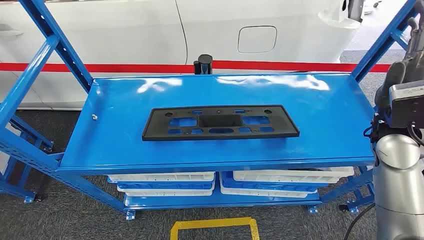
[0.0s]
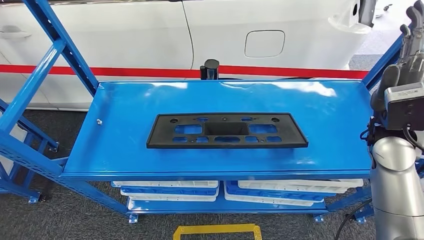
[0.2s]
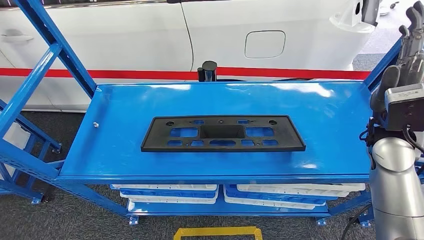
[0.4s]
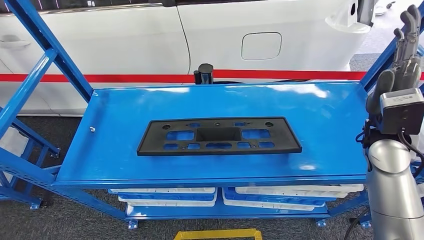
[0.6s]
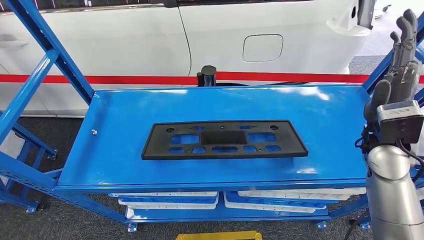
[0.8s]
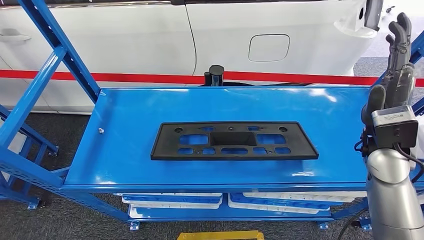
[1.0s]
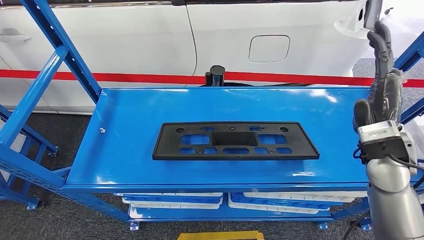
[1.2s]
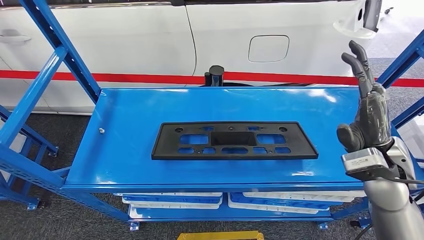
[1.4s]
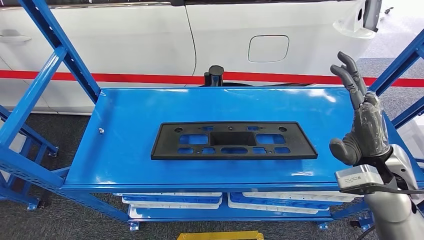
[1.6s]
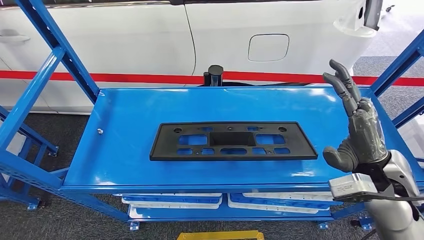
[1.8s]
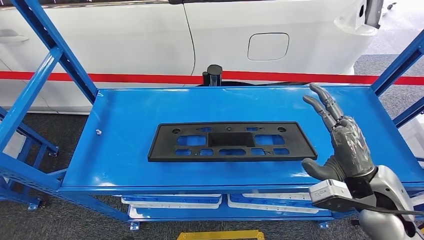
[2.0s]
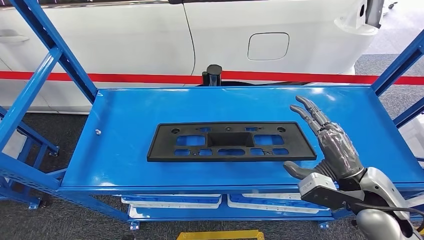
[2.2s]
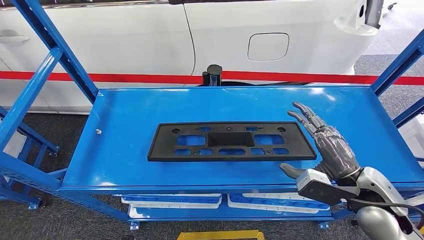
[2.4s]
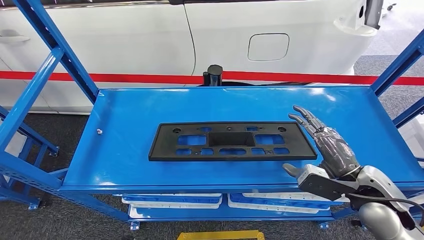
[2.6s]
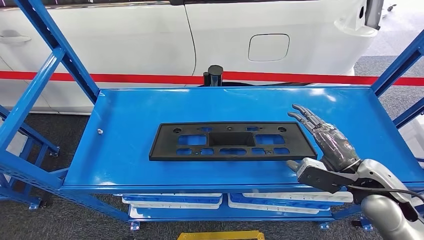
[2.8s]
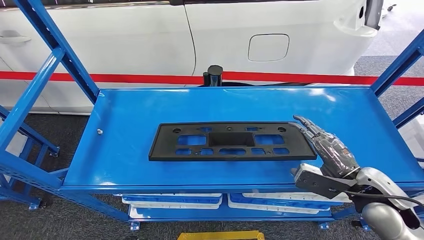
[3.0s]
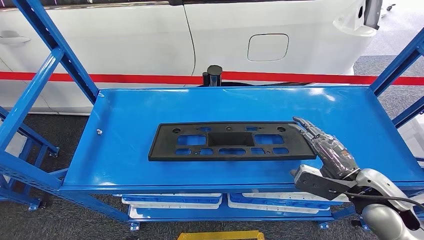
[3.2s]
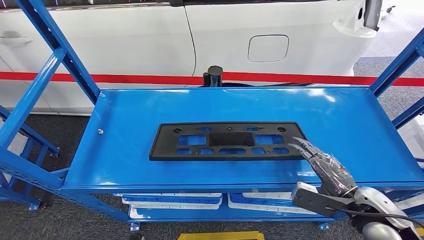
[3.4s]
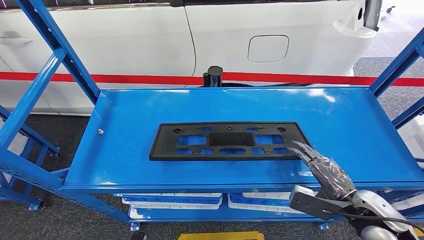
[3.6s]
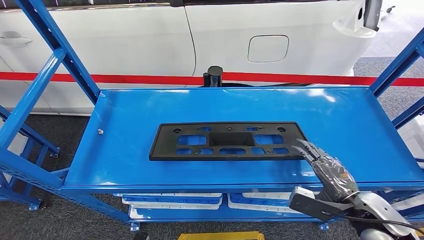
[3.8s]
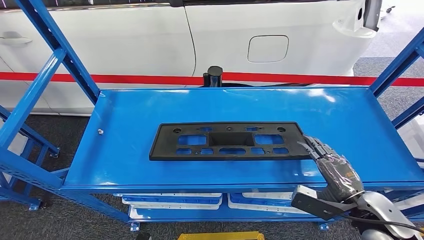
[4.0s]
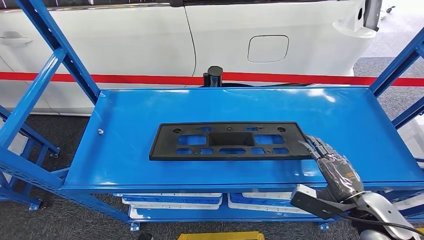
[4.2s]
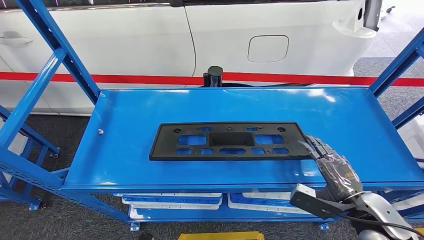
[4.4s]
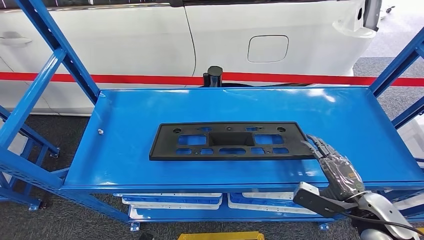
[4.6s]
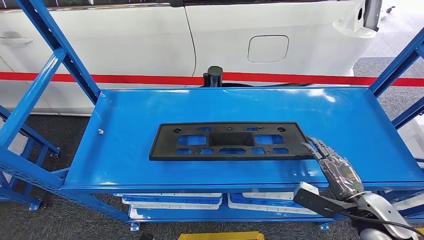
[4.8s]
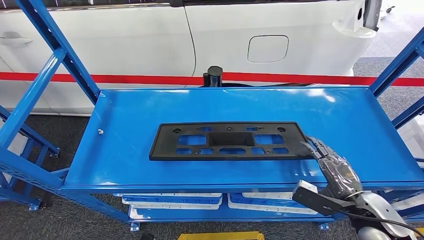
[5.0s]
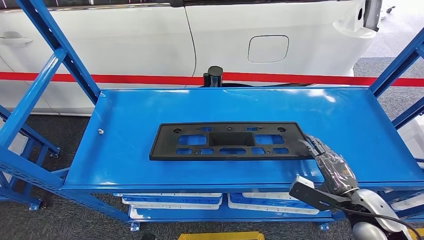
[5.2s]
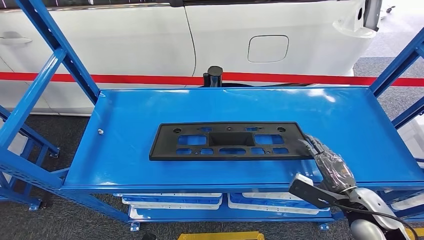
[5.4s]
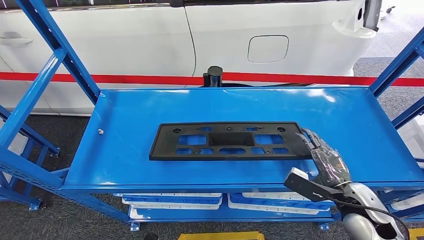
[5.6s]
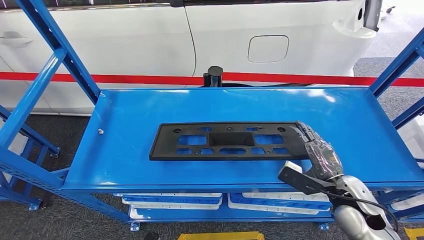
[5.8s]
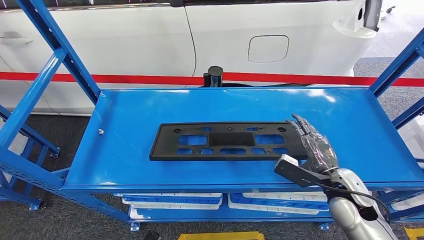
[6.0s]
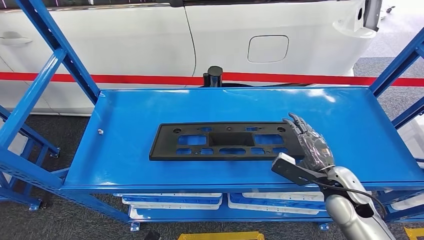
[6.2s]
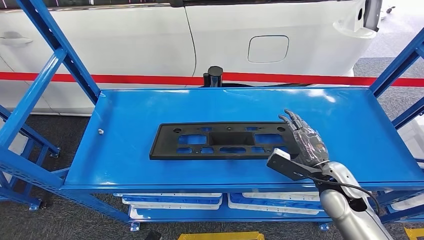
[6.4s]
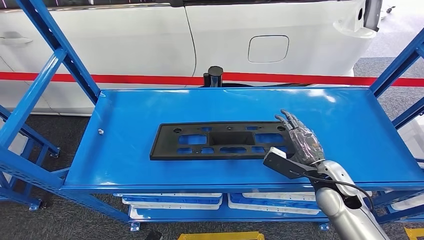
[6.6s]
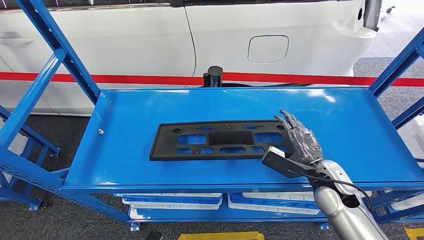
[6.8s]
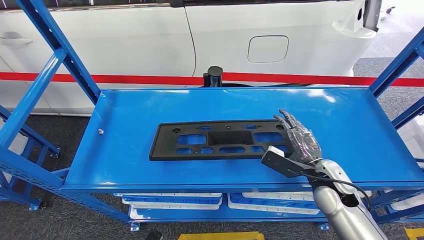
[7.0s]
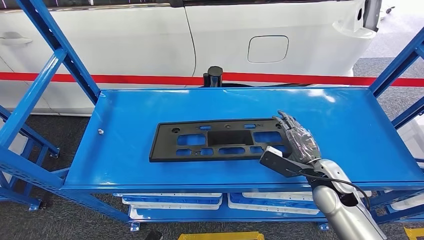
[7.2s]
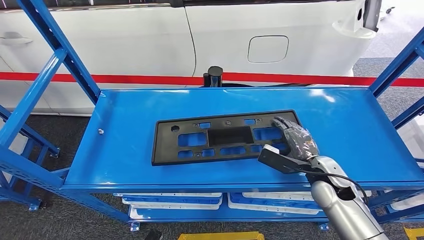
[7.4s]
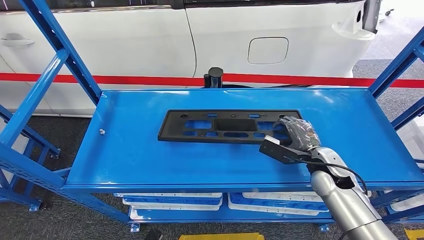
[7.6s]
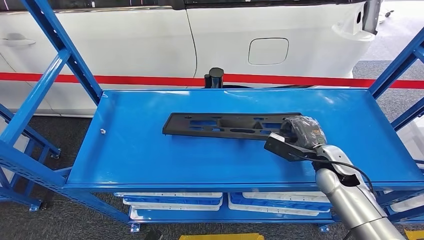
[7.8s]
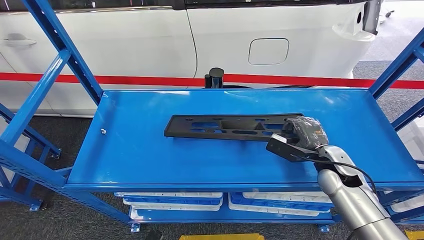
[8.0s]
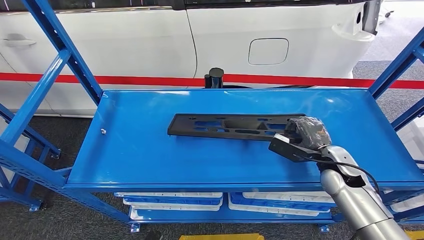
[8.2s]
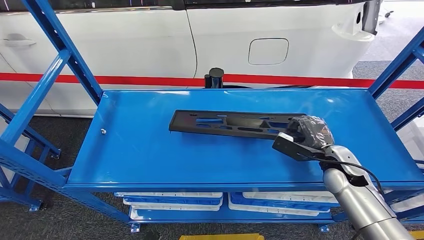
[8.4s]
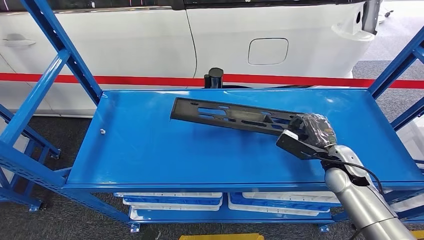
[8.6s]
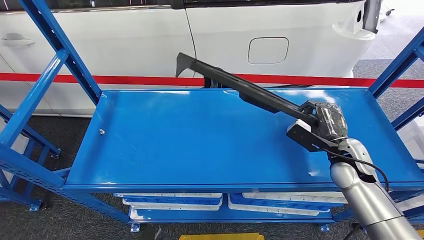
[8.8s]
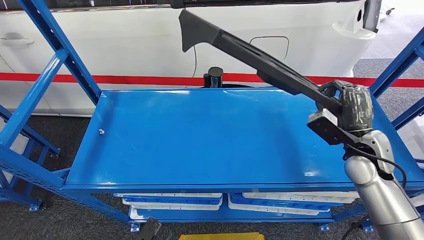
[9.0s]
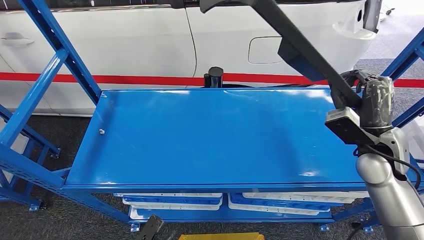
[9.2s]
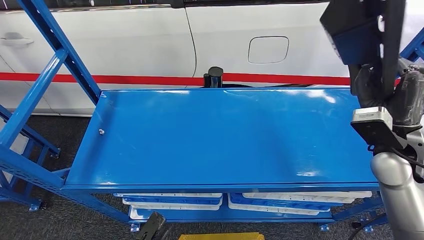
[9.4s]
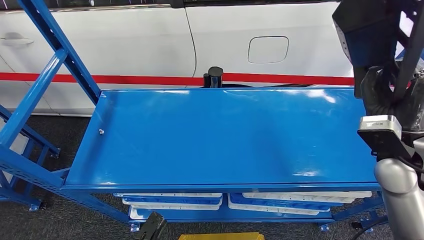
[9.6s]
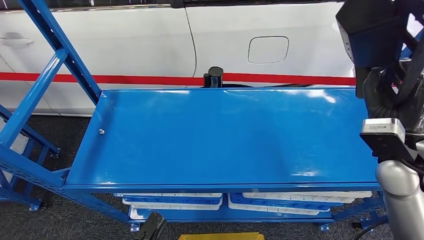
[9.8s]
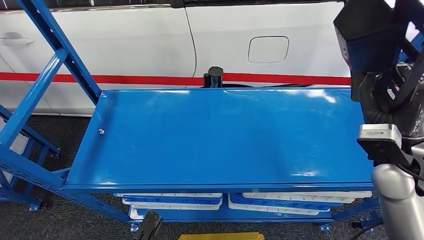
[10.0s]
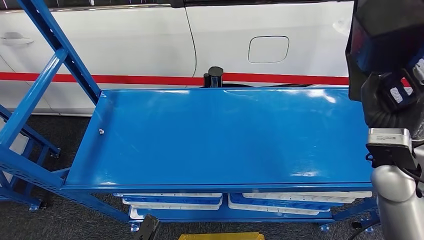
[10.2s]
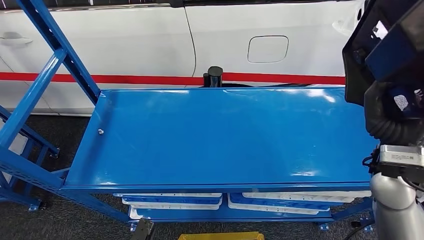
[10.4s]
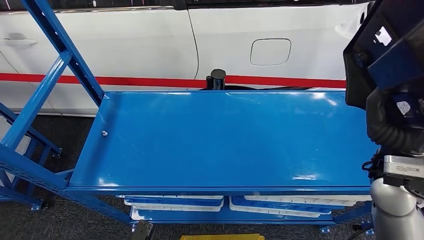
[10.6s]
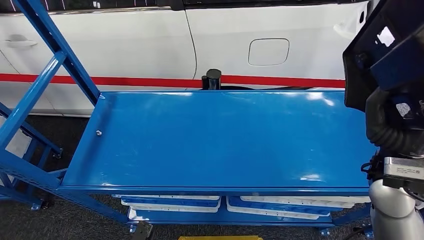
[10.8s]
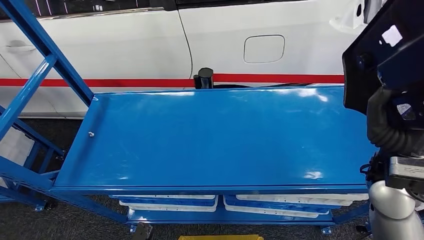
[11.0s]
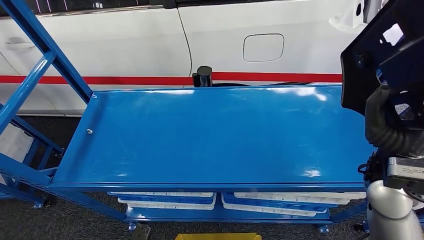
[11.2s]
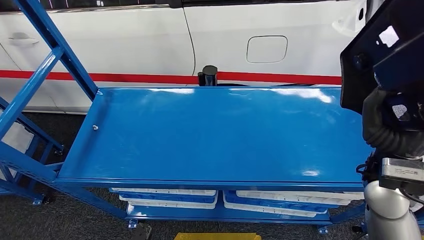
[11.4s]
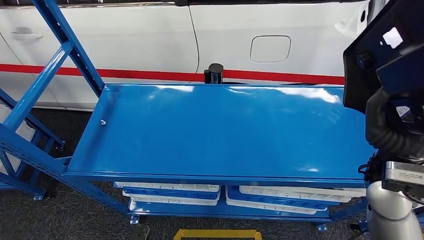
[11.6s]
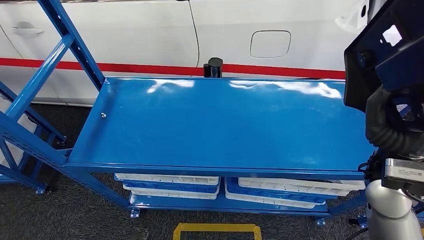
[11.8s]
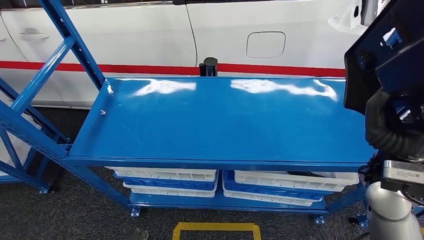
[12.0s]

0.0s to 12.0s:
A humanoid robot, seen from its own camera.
1.6s to 3.0s: The right hand travels downward by some 5 cm.
3.0s to 4.4s: The right hand moves roughly 5 cm.
4.4s to 6.0s: The right hand travels forward by some 5 cm.
6.0s to 7.6s: The right hand goes roughly 5 cm forward.

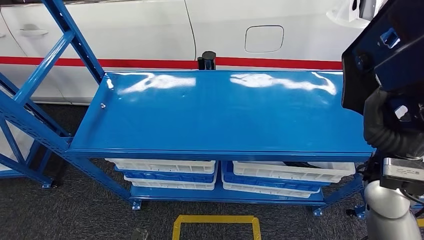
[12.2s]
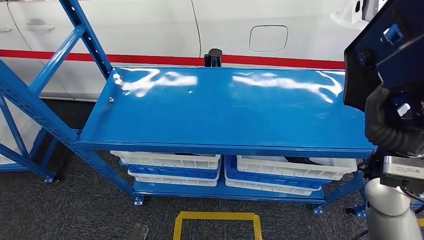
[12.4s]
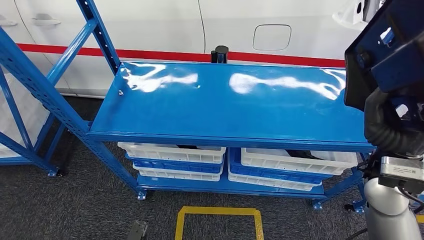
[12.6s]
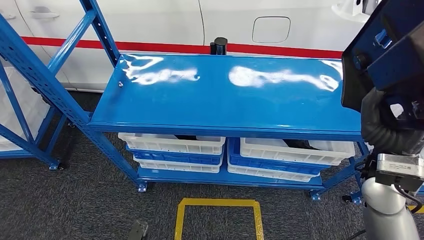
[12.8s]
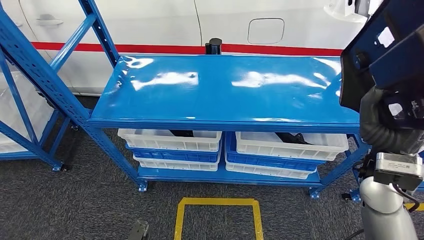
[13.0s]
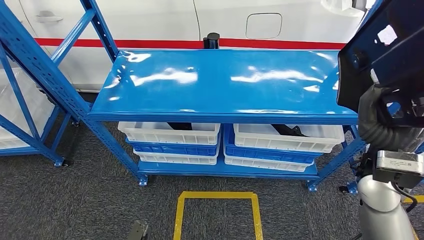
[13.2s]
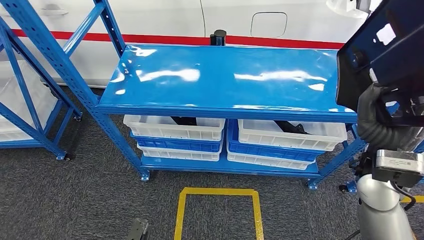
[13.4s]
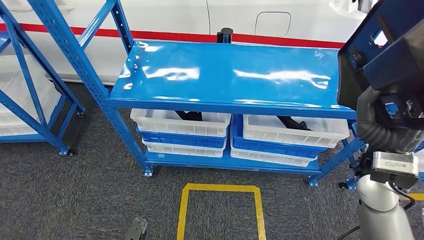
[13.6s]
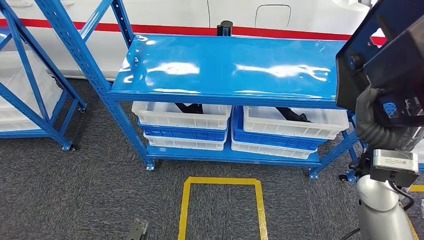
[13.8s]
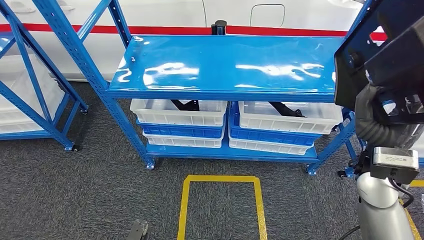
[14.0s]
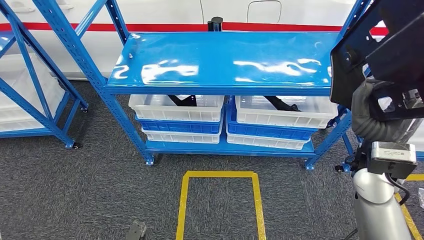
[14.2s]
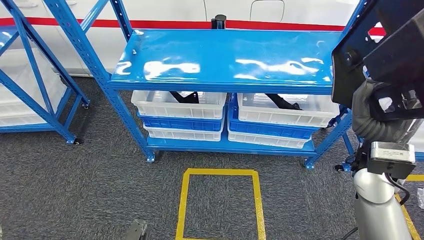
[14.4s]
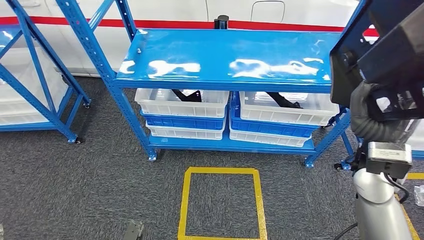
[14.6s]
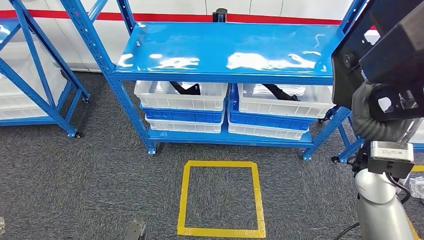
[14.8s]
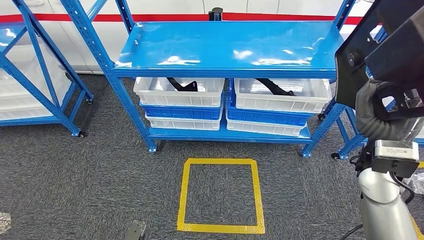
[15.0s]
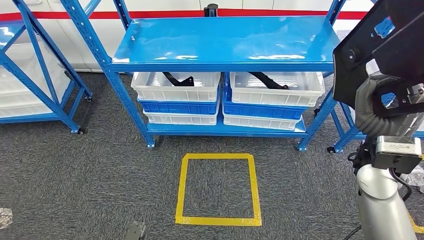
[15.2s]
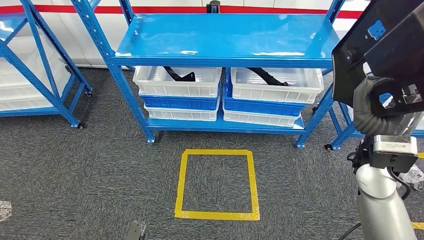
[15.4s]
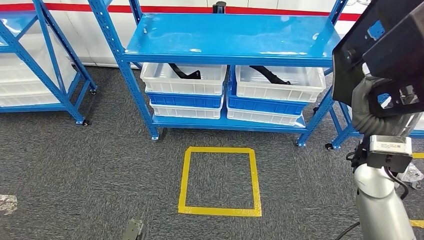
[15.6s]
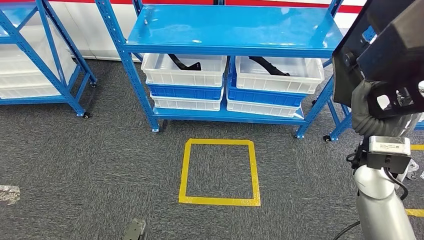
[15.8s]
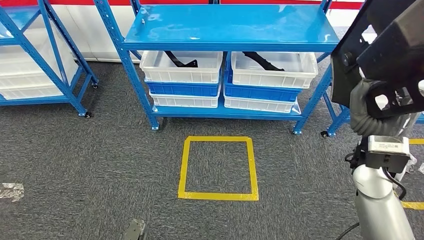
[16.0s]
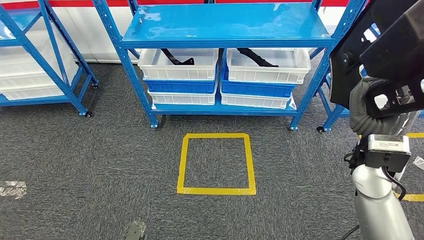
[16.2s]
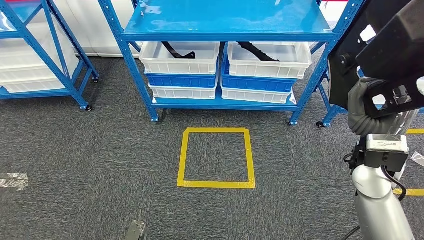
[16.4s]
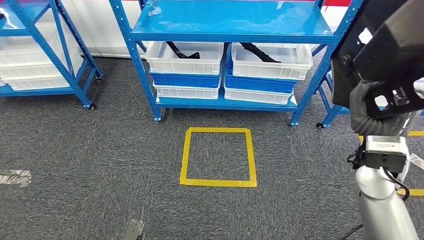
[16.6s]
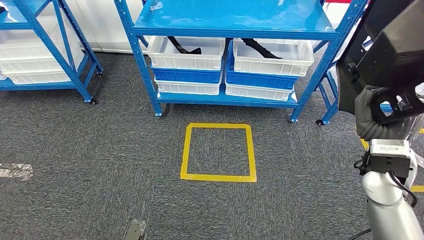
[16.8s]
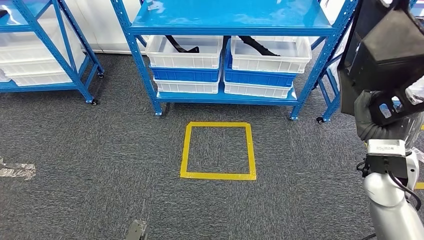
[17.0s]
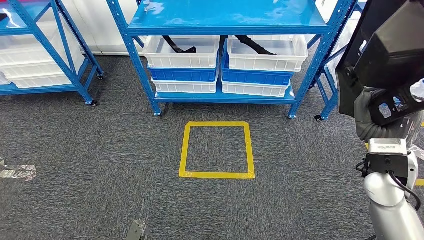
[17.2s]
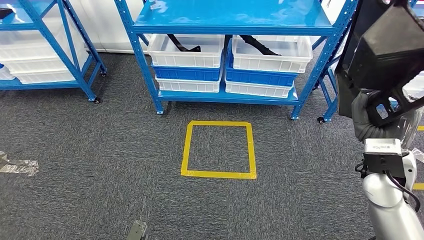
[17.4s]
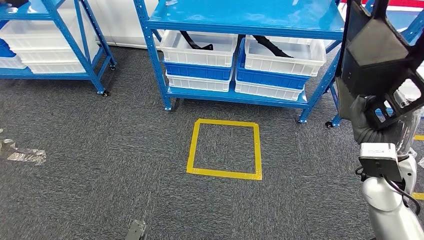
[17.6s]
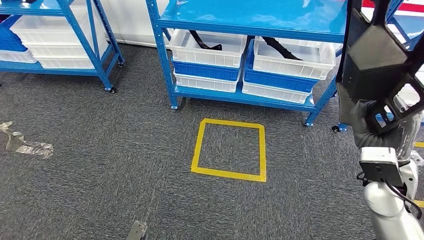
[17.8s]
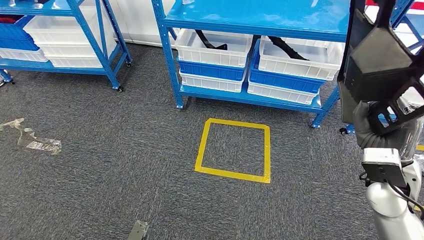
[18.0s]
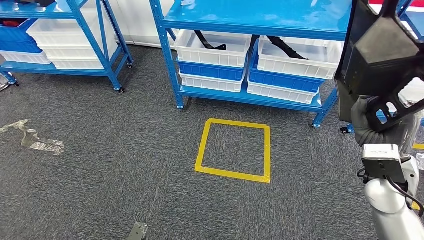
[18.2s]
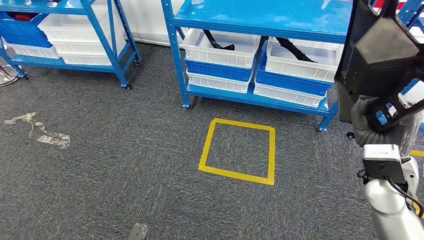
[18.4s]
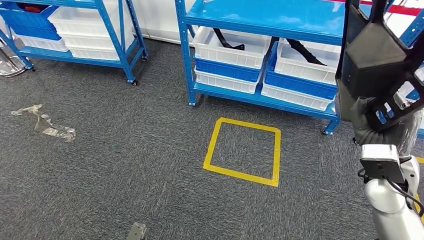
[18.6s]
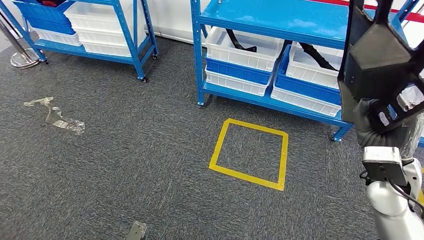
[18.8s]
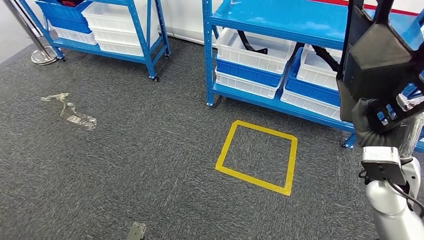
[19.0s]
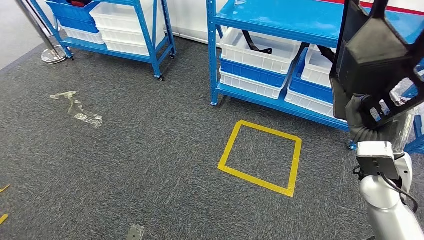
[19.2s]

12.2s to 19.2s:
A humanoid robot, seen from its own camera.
Step, 12.2s to 14.8s: Pick up the large material from the shelf.
